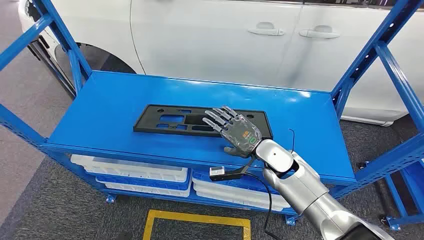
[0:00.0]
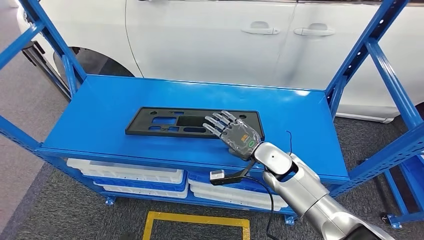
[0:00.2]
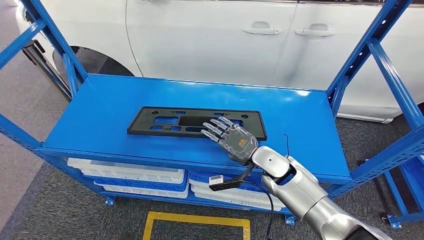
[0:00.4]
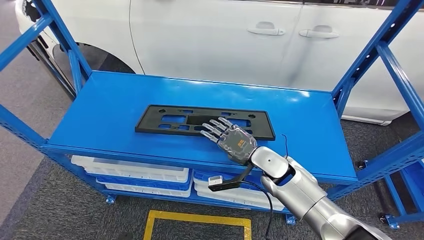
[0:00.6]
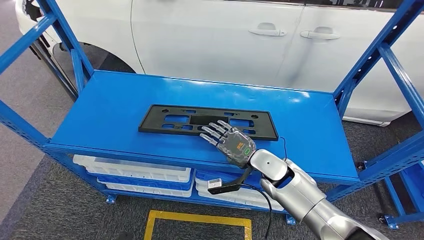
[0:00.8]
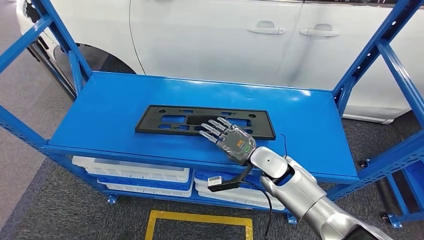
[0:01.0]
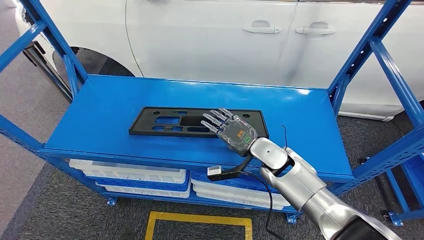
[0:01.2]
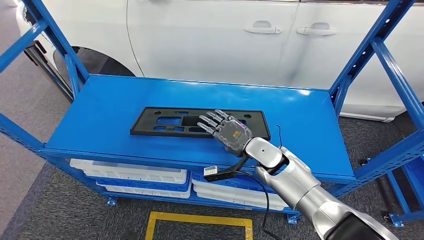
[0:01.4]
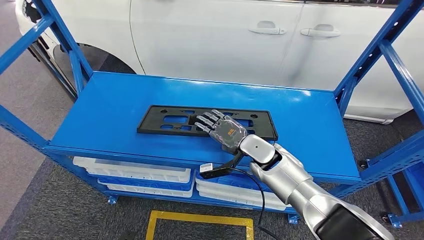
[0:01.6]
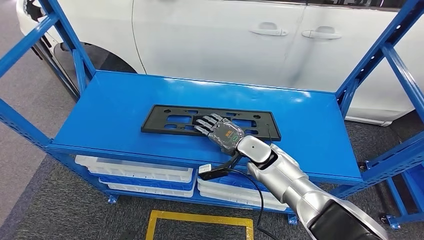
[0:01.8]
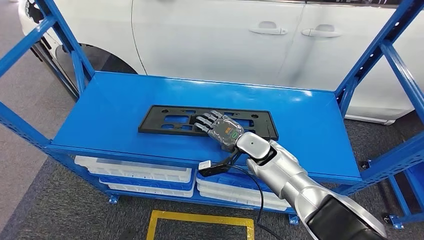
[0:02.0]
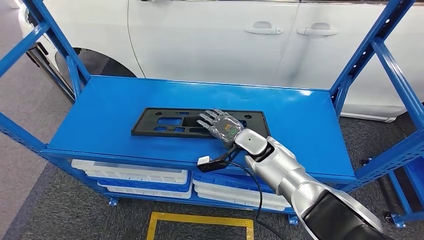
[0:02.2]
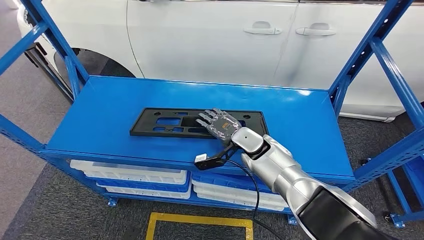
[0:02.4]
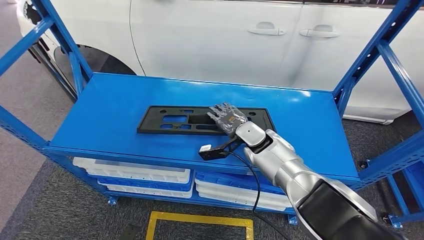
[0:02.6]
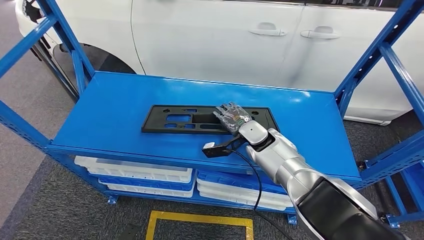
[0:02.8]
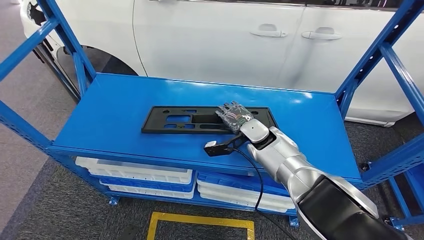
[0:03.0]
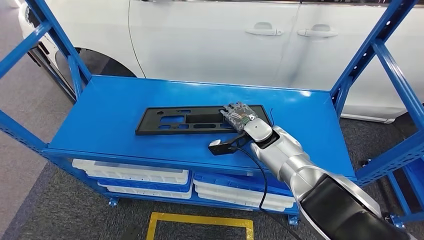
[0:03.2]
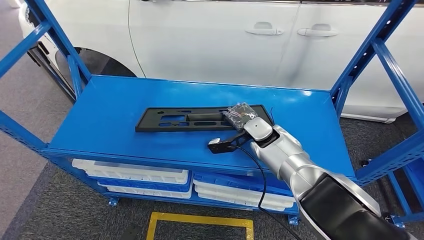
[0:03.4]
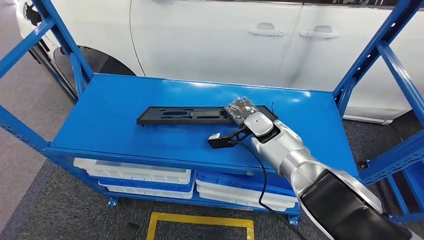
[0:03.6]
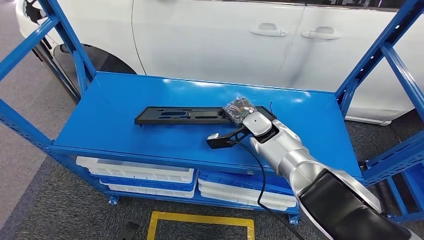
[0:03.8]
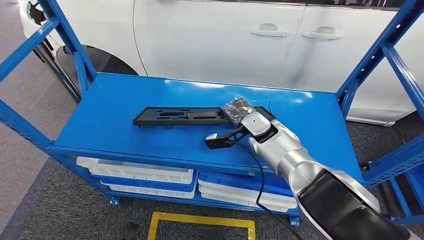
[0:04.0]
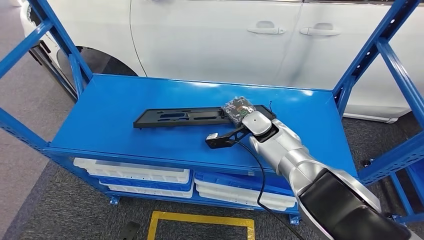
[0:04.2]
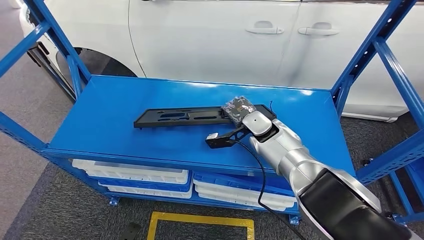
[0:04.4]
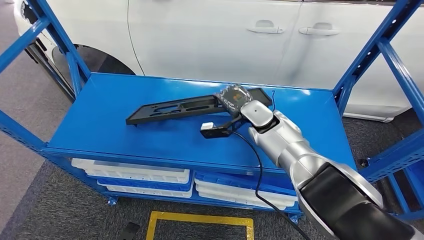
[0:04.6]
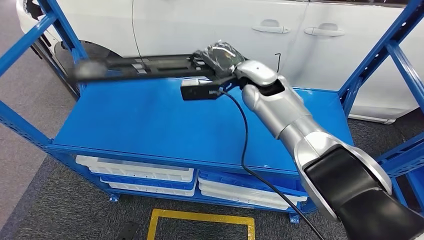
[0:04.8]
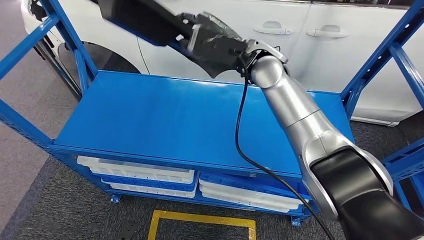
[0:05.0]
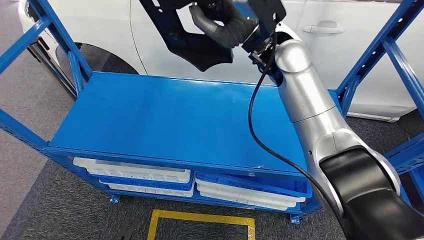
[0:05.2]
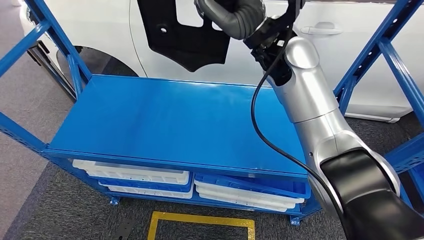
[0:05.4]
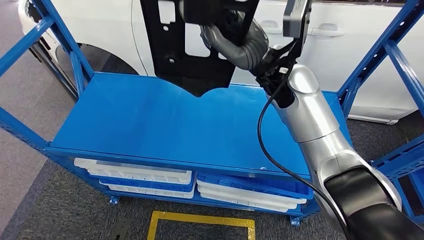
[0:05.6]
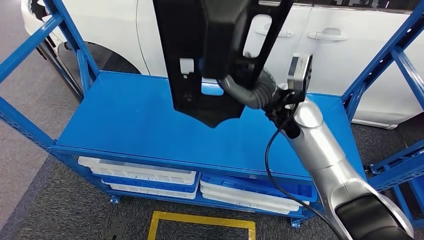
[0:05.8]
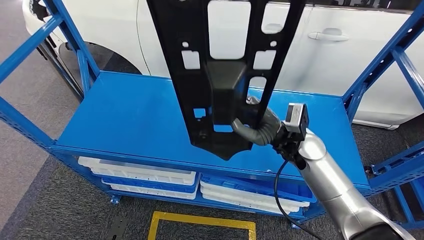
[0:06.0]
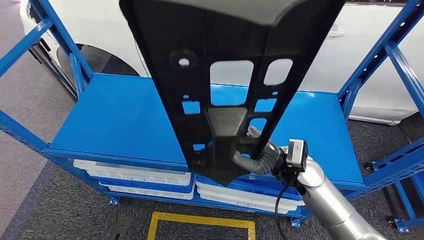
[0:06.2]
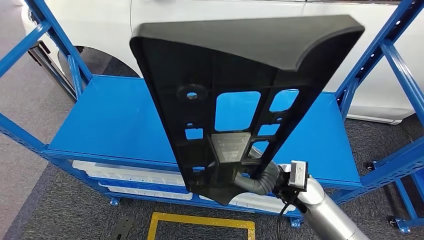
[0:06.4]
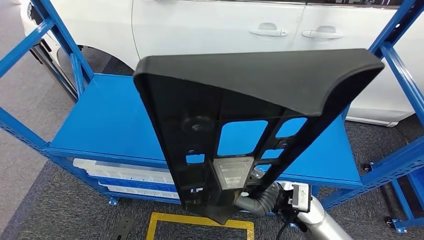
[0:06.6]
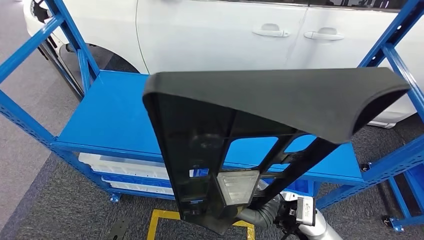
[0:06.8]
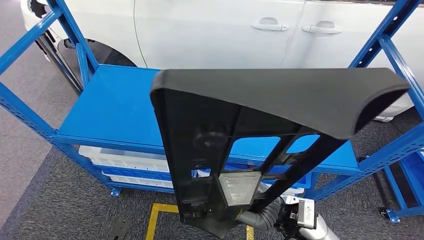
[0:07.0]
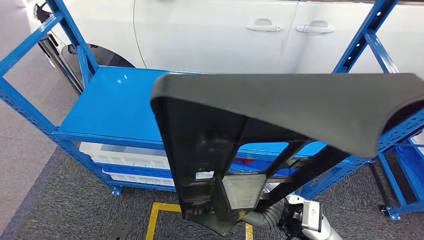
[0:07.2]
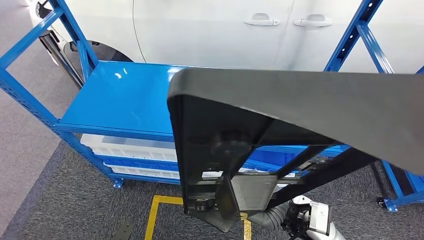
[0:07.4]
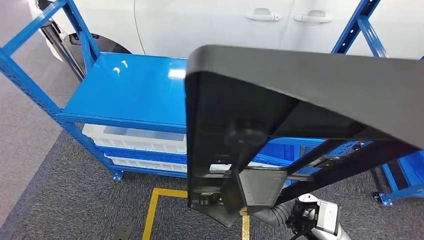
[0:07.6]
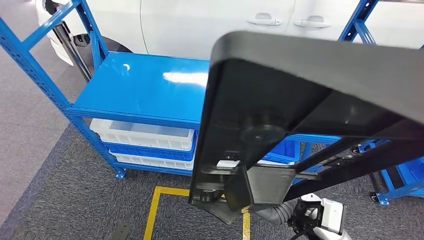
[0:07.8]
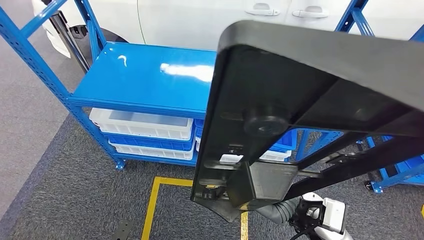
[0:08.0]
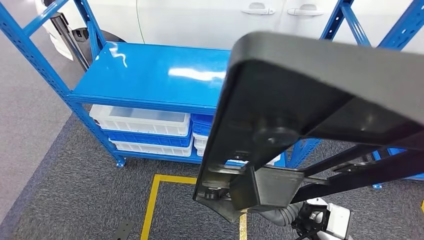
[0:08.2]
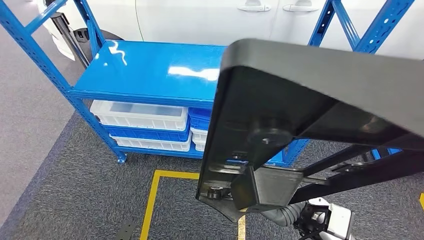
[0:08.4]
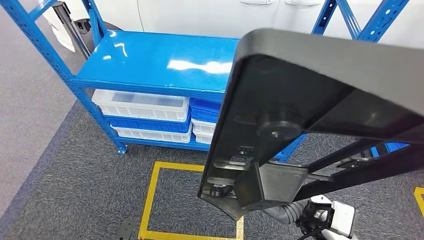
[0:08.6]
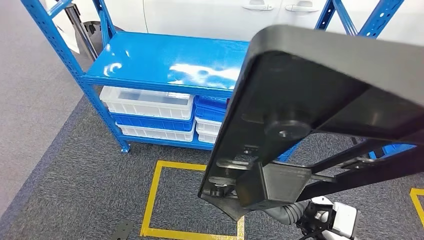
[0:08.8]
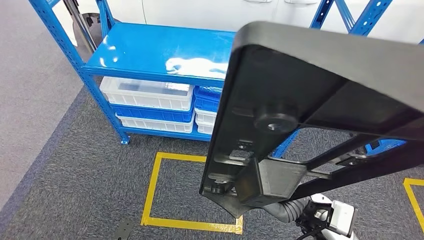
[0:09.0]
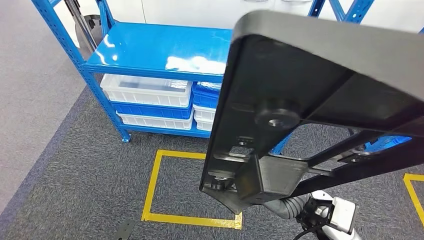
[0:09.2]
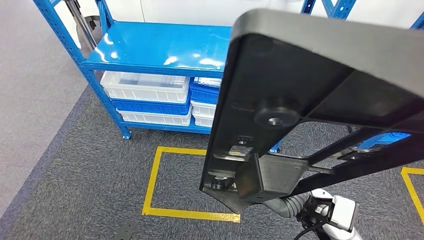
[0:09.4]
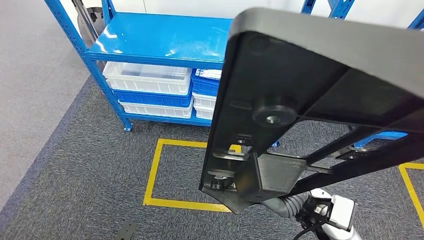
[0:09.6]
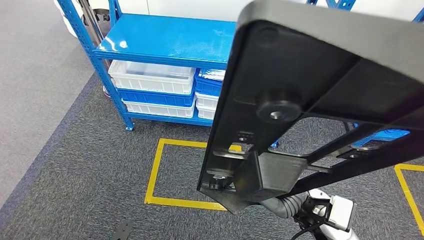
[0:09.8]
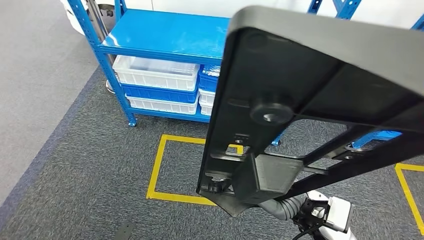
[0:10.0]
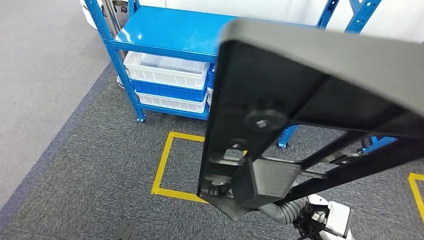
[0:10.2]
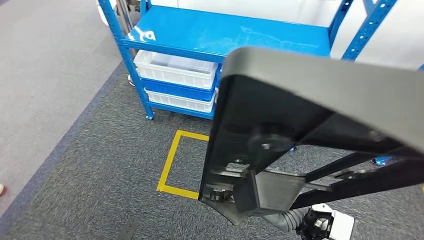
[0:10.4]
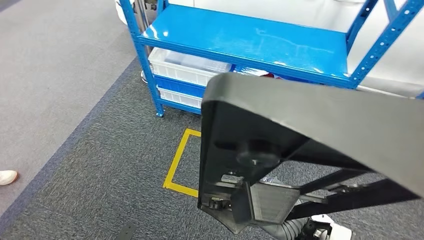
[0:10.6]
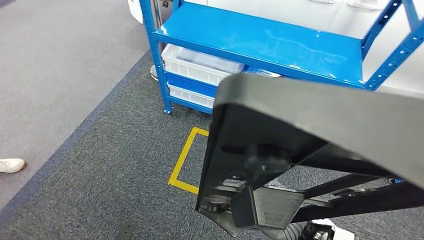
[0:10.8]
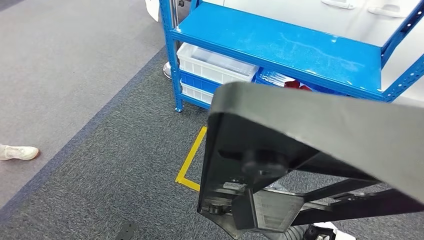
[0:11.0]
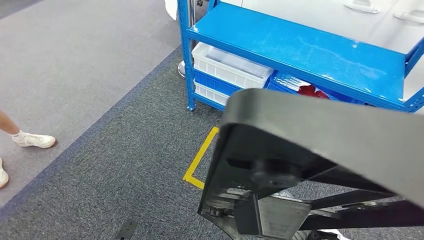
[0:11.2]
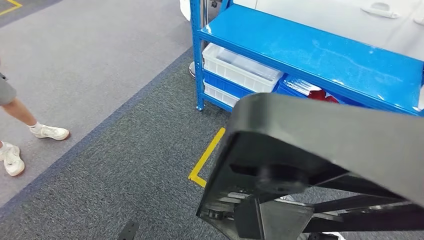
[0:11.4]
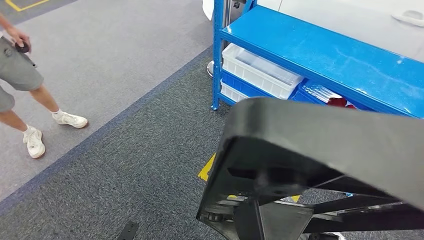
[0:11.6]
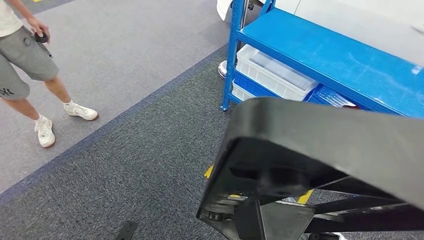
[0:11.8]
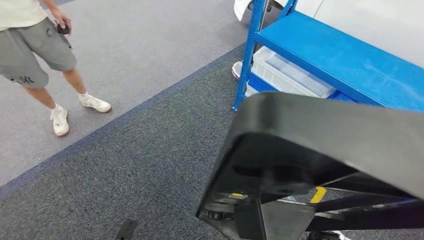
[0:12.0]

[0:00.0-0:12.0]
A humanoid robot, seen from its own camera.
Step, 0:00.0 to 0:05.6: Pick up the large material from the shelf.

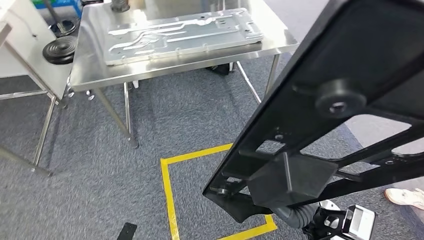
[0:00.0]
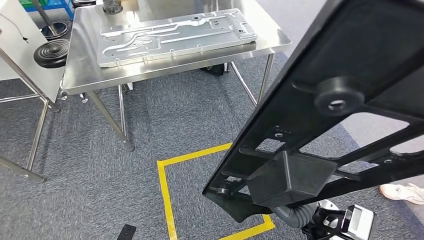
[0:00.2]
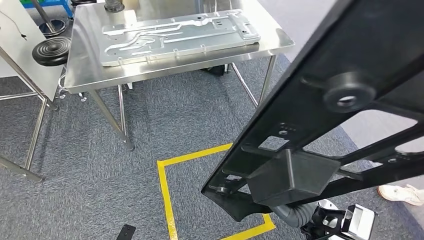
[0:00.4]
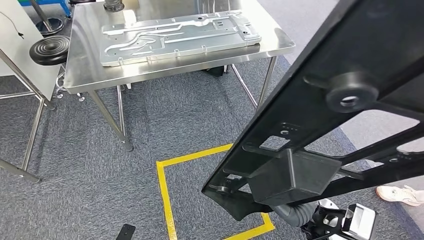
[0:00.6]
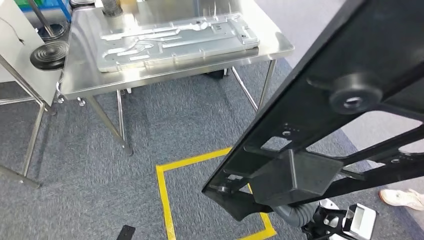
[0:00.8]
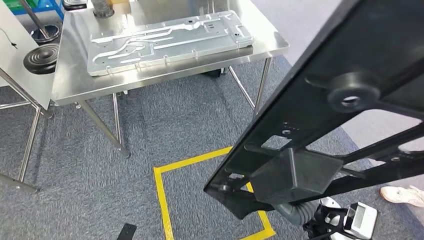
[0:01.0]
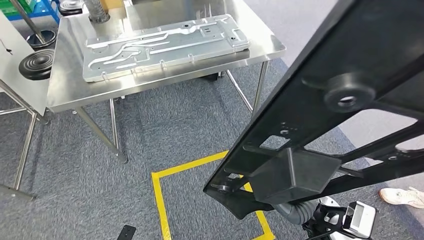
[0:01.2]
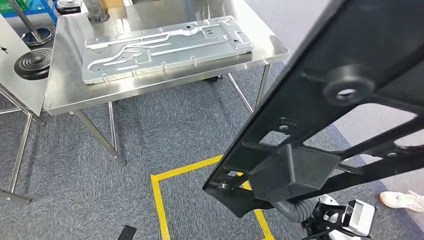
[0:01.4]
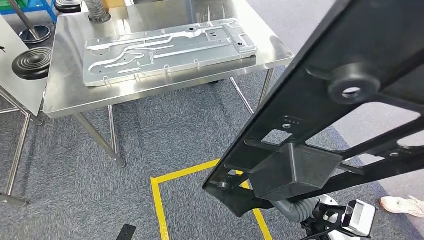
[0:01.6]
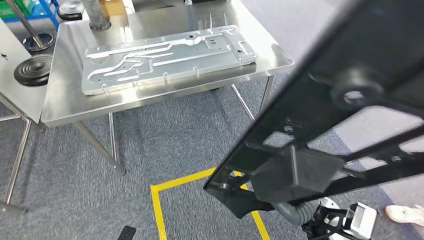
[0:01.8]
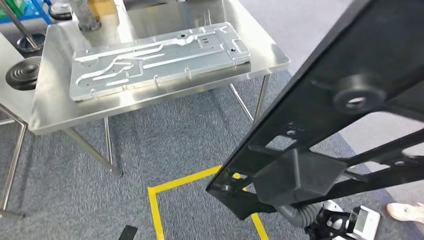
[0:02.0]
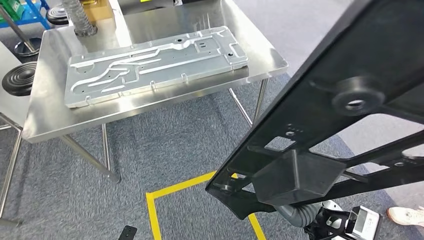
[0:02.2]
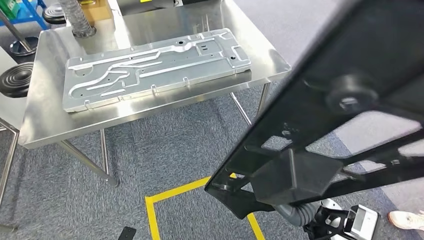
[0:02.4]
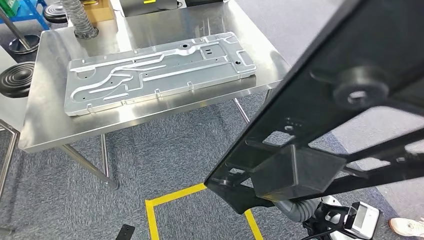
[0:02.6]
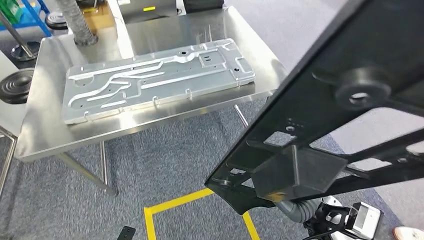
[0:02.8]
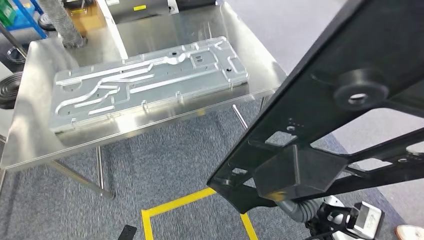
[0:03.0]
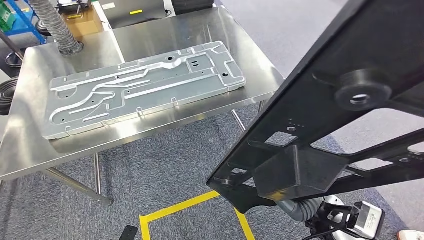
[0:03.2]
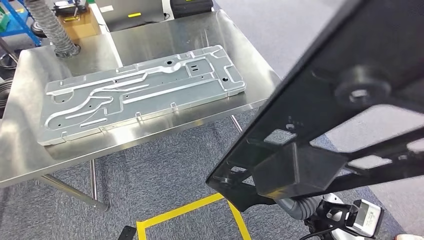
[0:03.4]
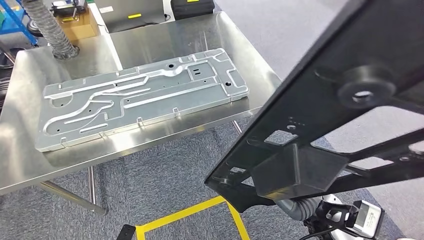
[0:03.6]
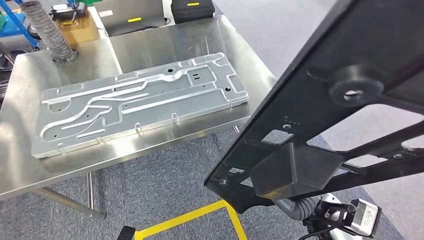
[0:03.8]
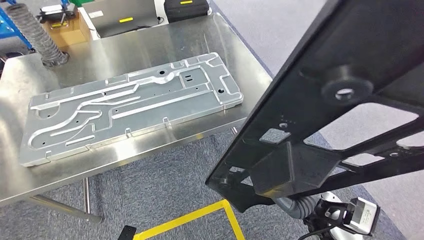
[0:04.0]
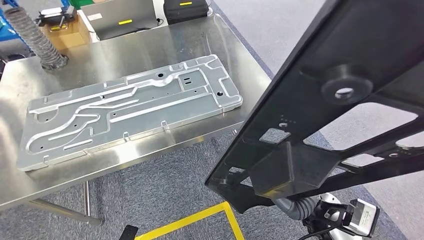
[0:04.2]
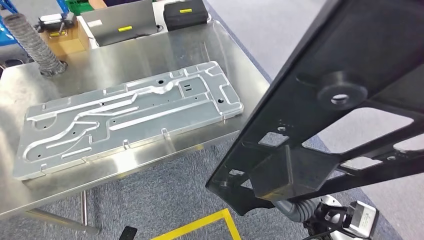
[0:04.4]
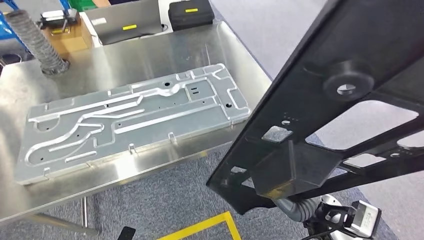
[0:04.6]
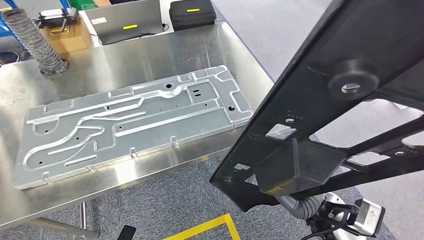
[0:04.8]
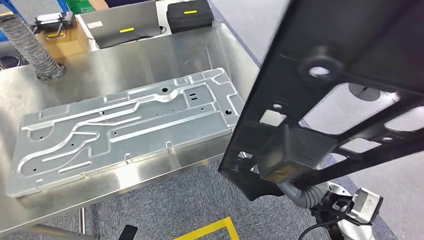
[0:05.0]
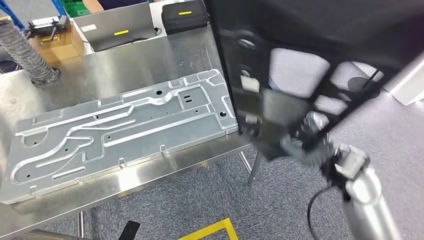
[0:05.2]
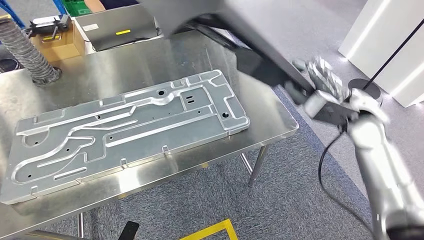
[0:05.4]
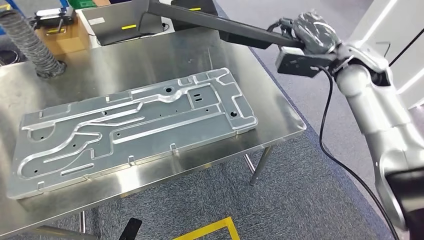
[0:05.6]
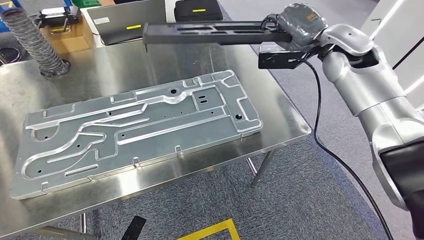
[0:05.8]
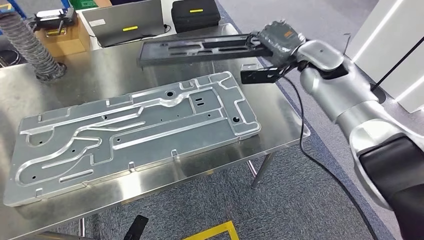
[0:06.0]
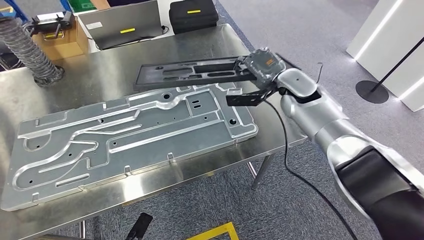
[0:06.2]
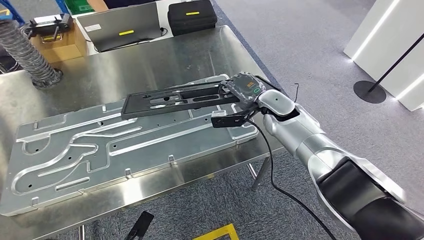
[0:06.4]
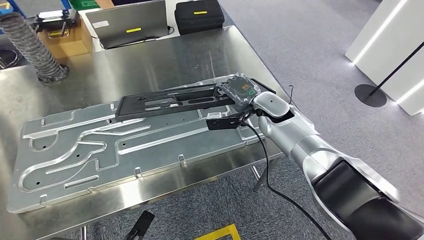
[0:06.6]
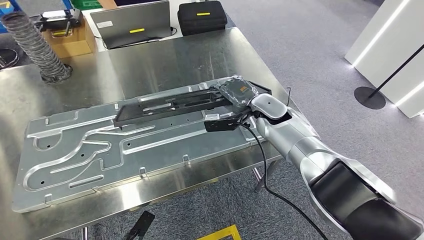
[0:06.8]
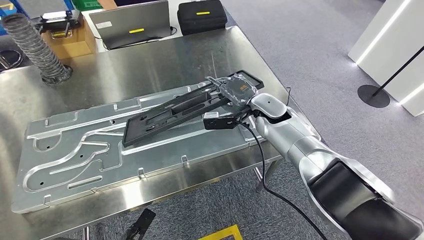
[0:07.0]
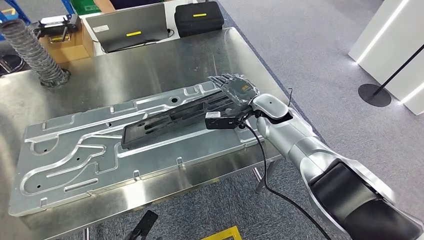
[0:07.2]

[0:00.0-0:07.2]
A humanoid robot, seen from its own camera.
Step, 0:00.0 to 0:05.0: Move the large material to the workbench.
